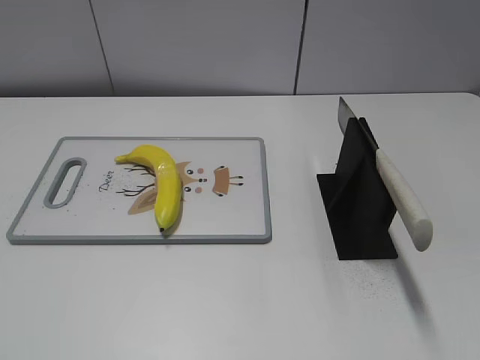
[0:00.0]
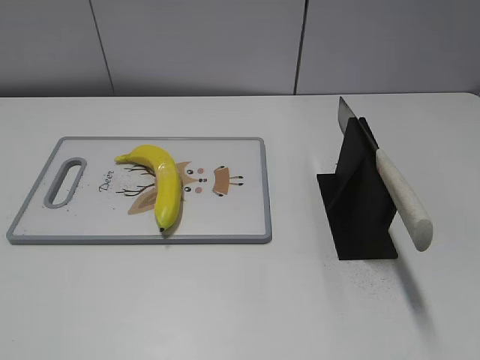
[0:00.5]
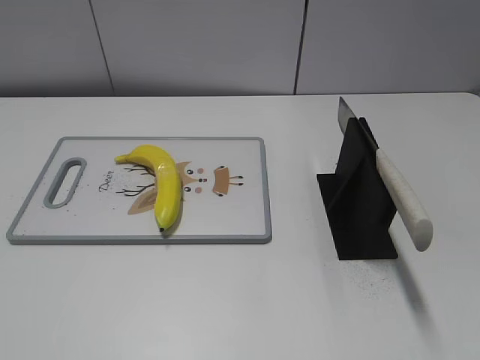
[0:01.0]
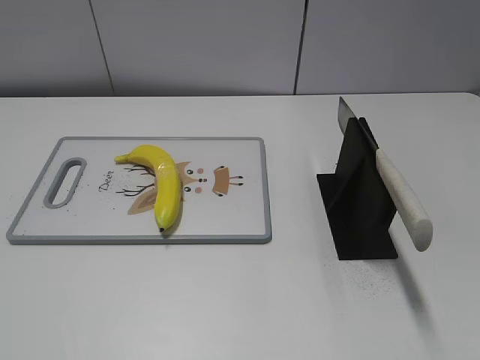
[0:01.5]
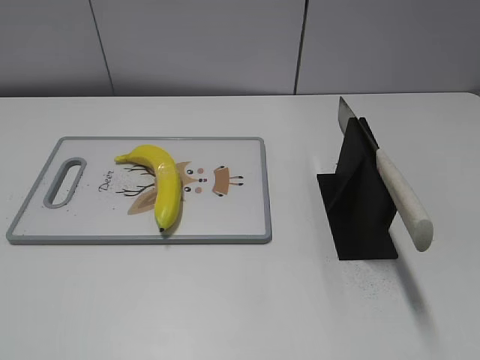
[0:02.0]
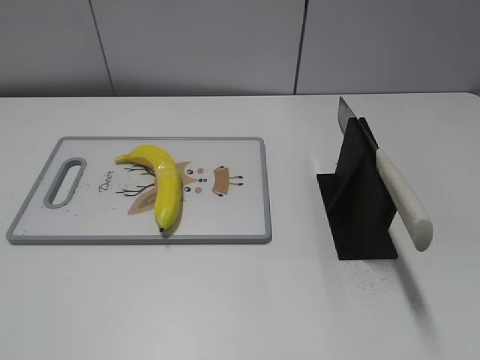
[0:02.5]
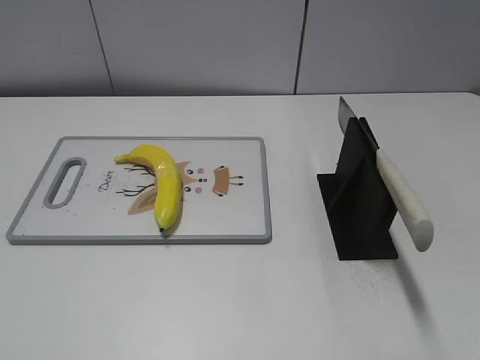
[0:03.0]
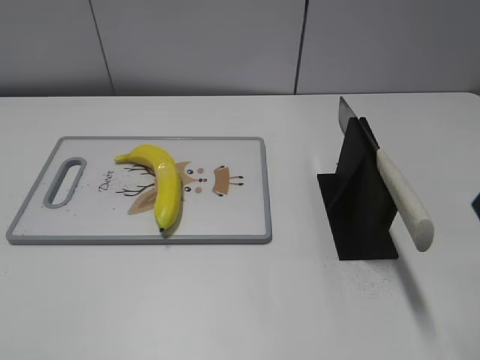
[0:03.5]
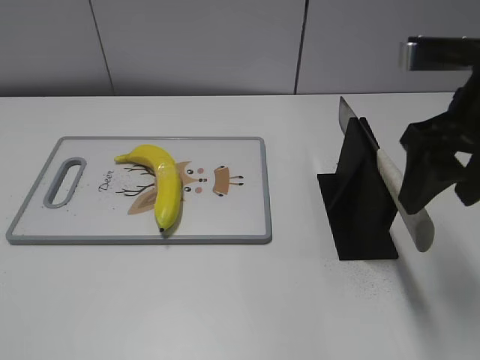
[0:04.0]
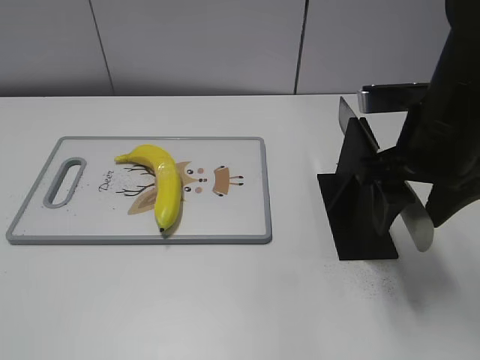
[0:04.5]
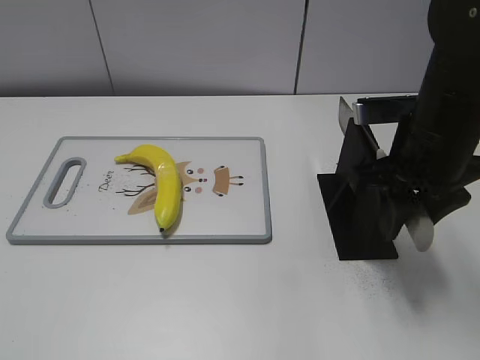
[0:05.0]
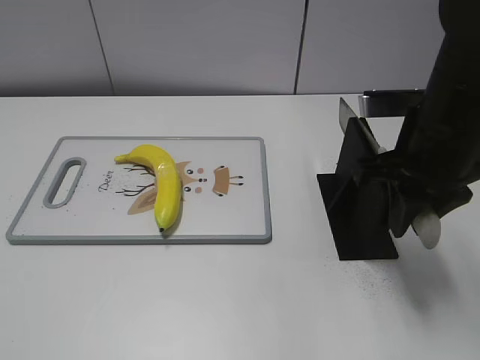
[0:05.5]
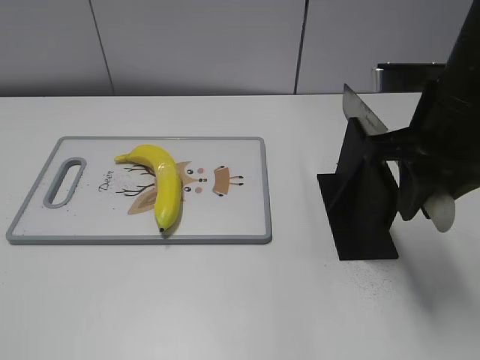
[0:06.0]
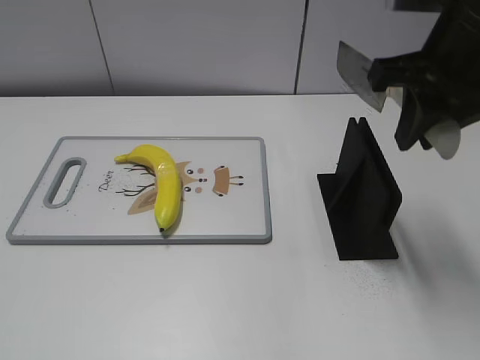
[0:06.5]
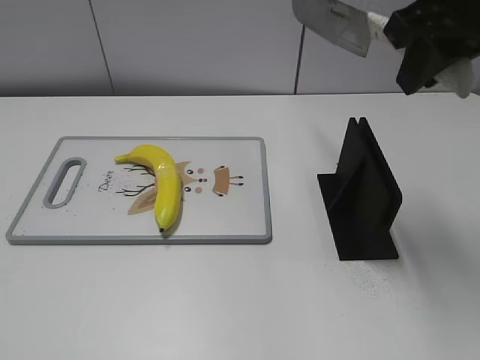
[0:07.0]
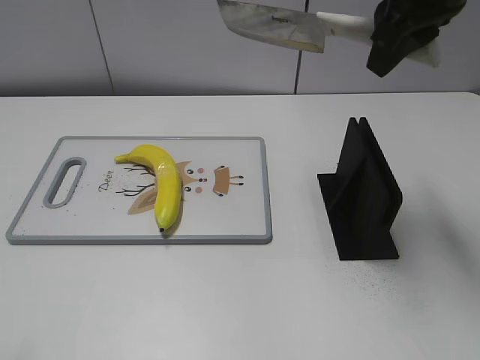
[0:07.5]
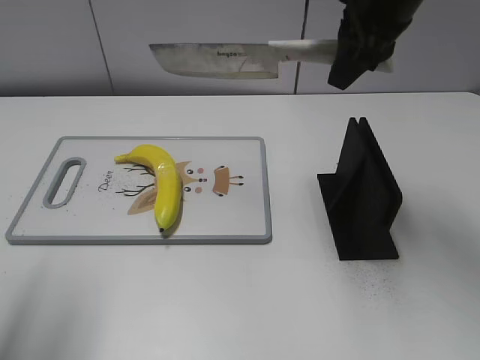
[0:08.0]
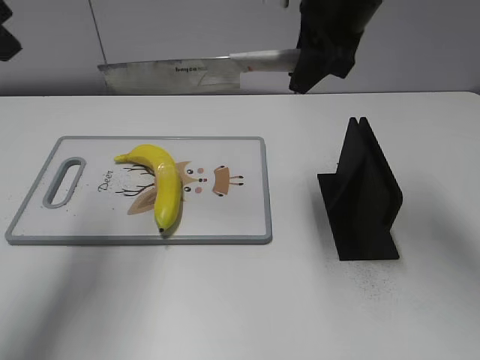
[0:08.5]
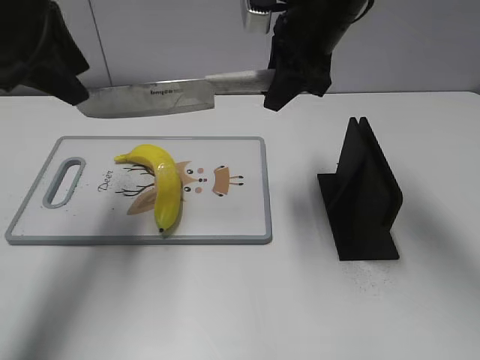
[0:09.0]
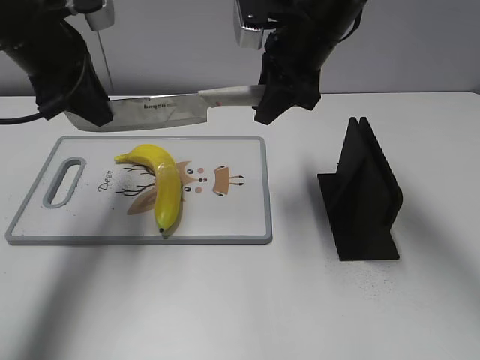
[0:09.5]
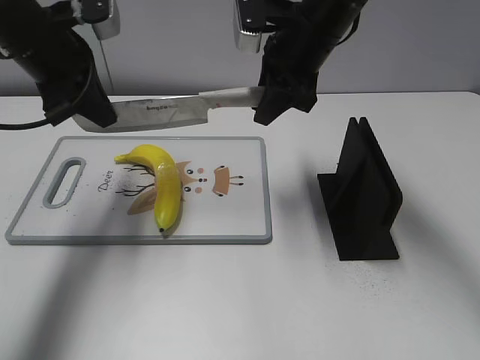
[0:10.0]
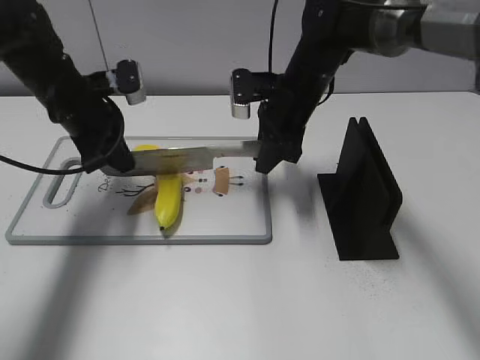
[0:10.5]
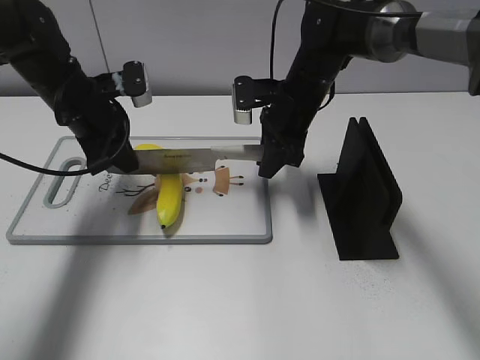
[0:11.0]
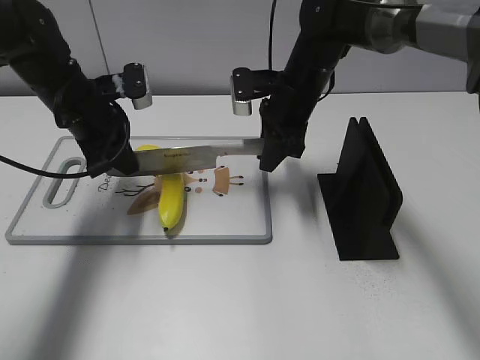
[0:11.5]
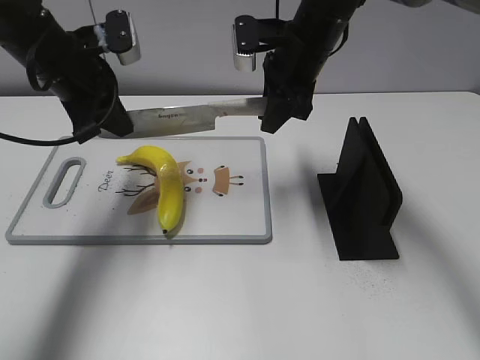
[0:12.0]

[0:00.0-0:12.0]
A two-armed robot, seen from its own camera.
Task of the whole recording: cut plastic banana.
Step, 0.0 to 6.0 s: Grab the knife handle with your right hand.
Step, 6.5 to 11.5 s: Lift the knife with your right hand.
2.0 to 4.0 s: The right gripper shifts approximately 30 cm forward and to the left.
4.0 to 6.0 s: The right gripper closes.
6.0 to 8.0 s: The right gripper heads forward and upward, covering some 10 cm. The left gripper goes some 20 cm forward and upward.
8.0 to 10.0 s: The left gripper heads forward and downward, covering approximately 25 cm, and closes its fingers. The right gripper moves downward, to the left and forward, approximately 10 cm.
10.0 to 12.0 s: The right gripper travels downward and back again, approximately 10 cm each way. The left gripper moves some 10 cm downward and comes back.

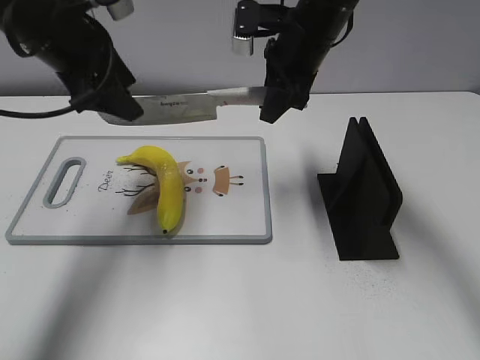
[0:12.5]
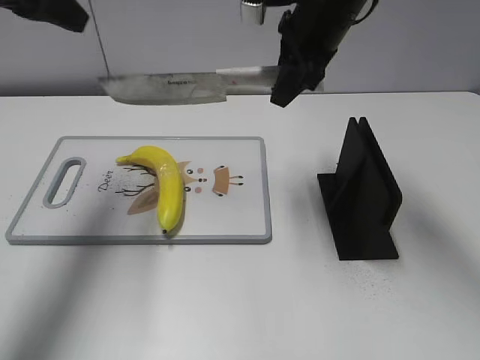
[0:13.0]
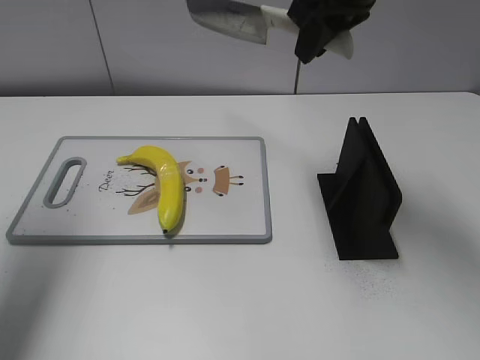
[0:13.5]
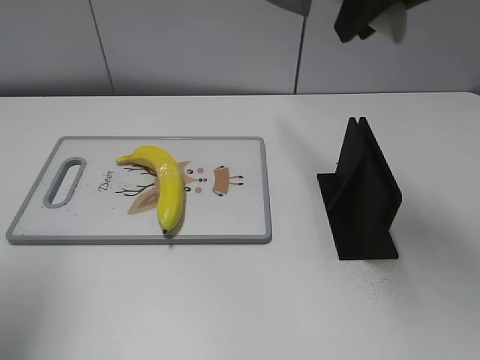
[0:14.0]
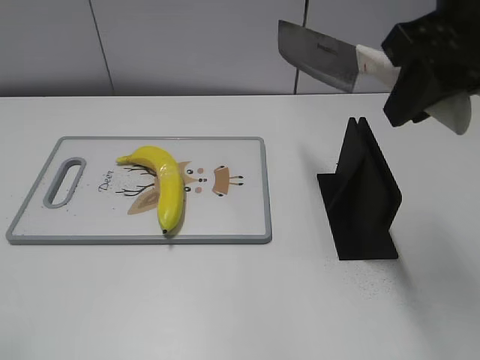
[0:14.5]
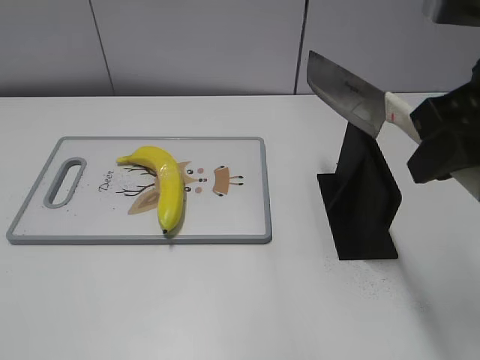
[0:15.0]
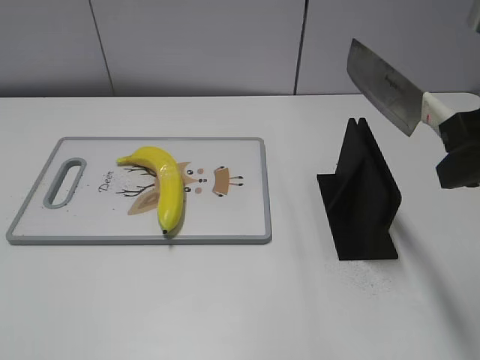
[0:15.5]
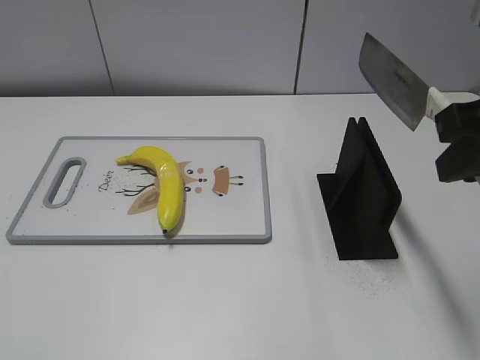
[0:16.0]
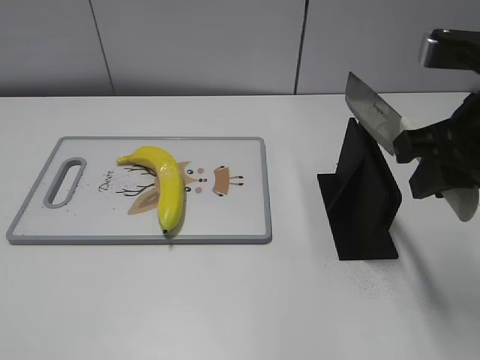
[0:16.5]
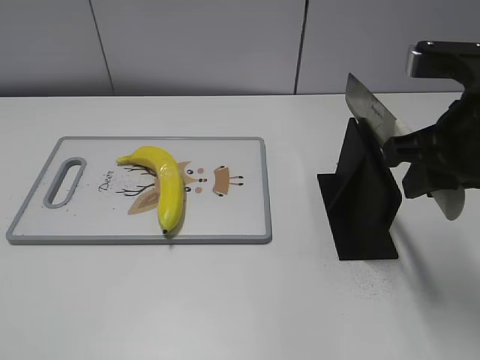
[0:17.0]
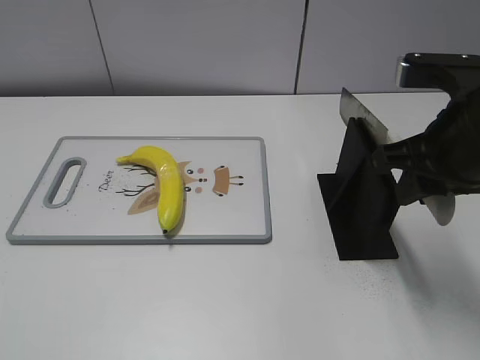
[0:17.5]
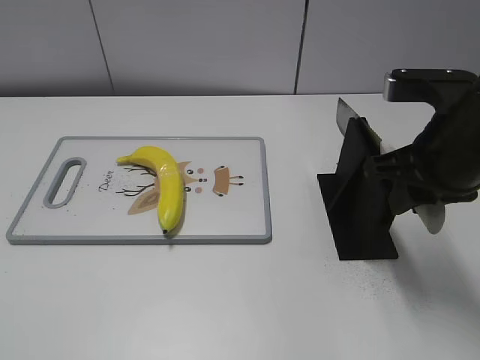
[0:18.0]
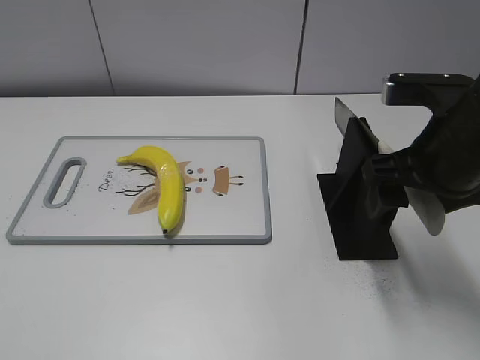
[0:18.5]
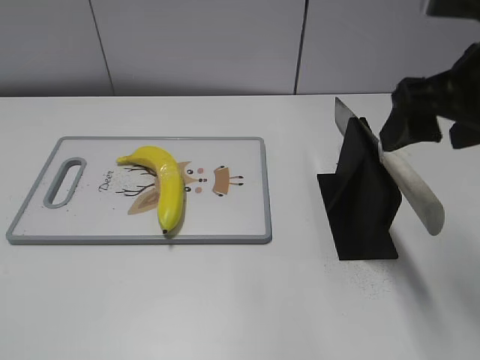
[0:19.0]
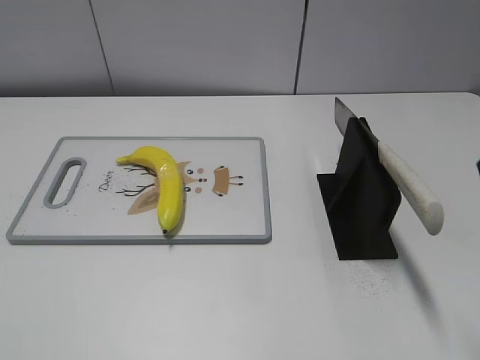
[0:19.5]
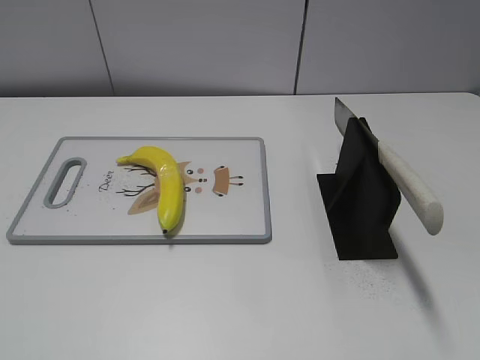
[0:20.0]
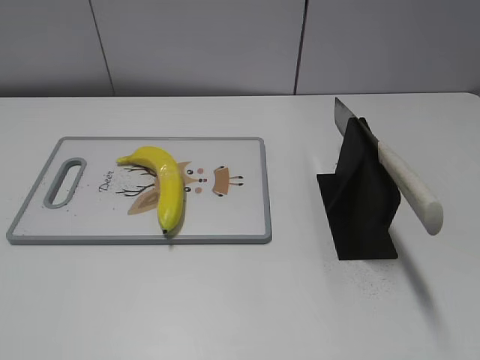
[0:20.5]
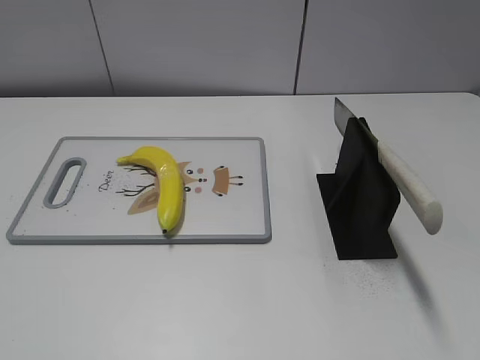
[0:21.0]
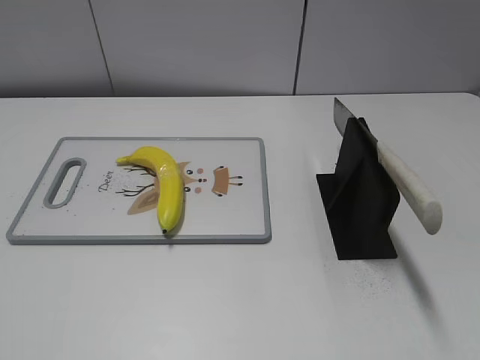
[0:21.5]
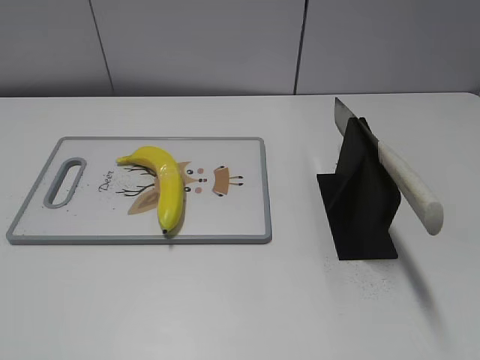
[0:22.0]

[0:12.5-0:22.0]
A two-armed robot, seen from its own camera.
Task of the whole recording: cut plastic banana.
Step, 12.5 to 13.0 s: Cut the banana with your right hand.
Step, 13.5 to 14.5 s: Lift the knife with your right hand.
Step, 15.0 to 22.0 s: Place the knife on the storage rack with your right hand.
12.5 to 14.5 s: The right gripper goes approximately 25 cm backward, upward and to the right. The left gripper moves backward and to the left, roughly 30 cm.
14.5 to 16.5 s: The right gripper shifts roughly 10 cm downward; the left gripper heads backward, covering roughly 10 cm.
16.5 to 18.0 s: The right gripper moves about 5 cm.
18.0 to 20.0 s: The right gripper heads backward, upward and to the right, covering roughly 20 cm, and opens up.

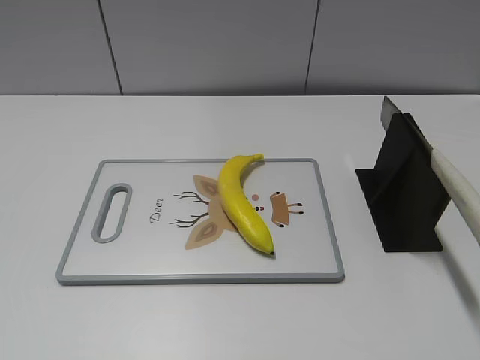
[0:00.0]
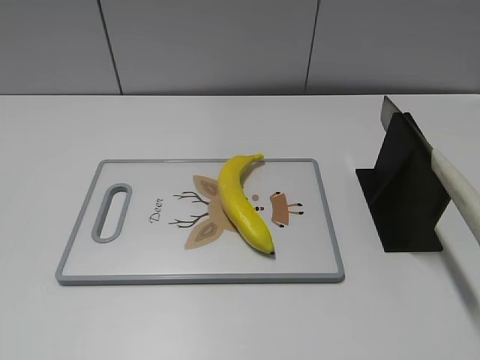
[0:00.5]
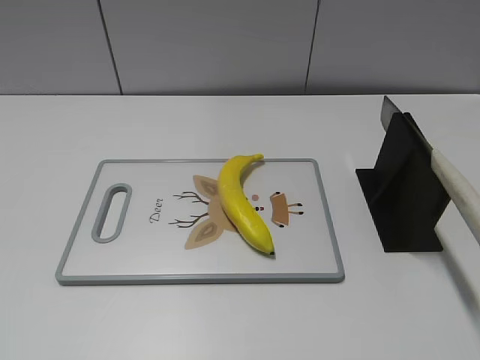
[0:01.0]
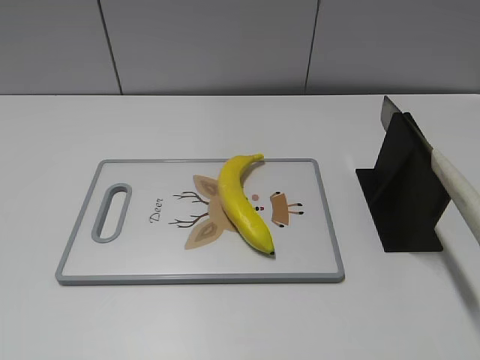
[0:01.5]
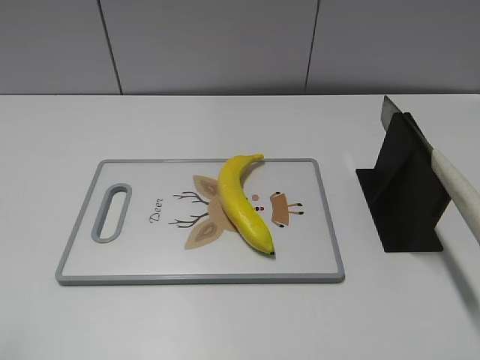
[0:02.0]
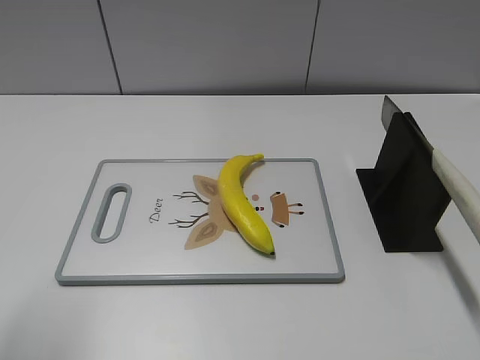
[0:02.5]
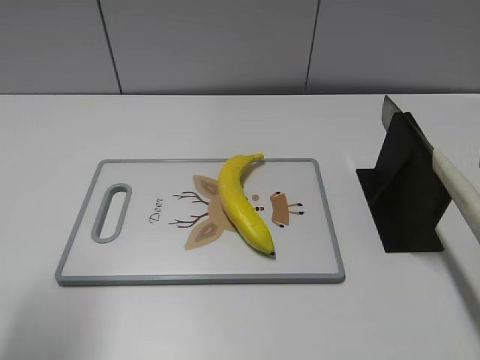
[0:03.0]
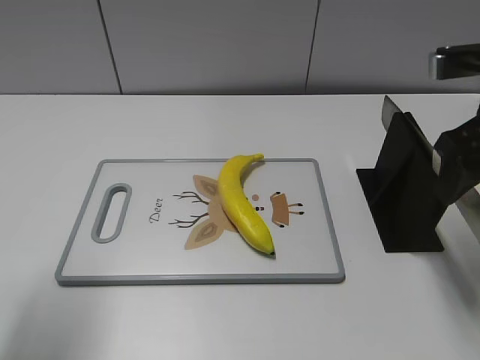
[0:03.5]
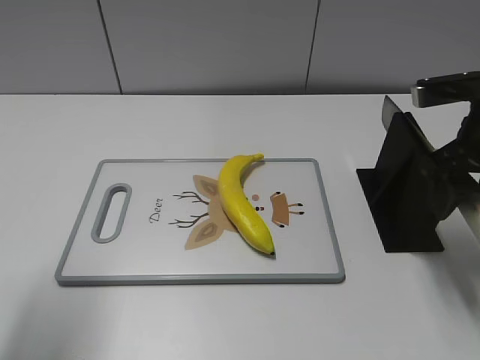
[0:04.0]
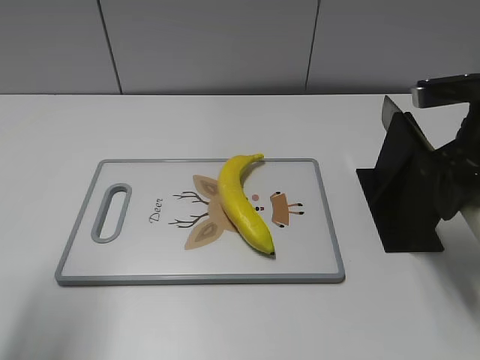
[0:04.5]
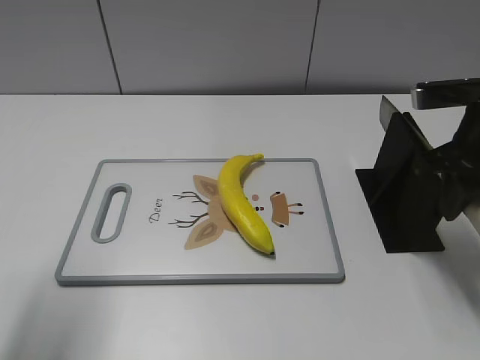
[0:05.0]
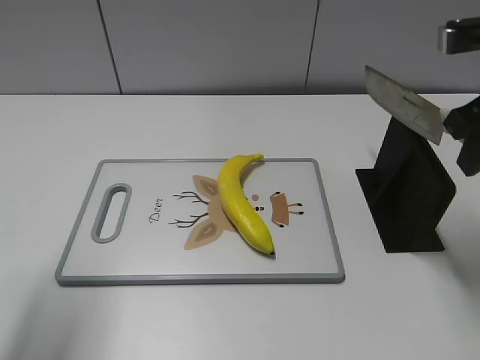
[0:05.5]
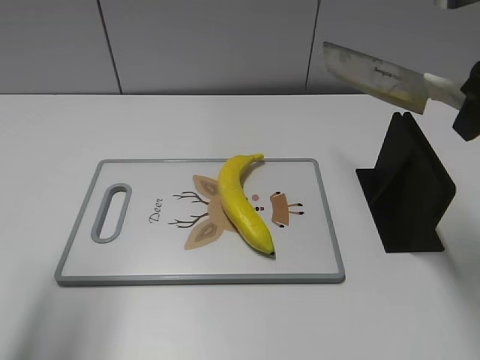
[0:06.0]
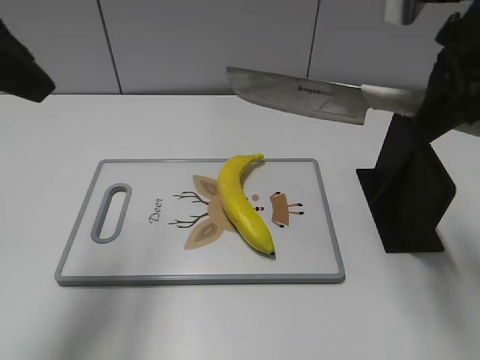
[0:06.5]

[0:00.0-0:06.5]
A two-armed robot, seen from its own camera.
Task of the whole recording: cut plastic banana.
Step, 0.0 to 5.0 s: Grab the knife handle with your right hand.
2.0 to 4.5 s: The right gripper goes about 25 cm forward and downward, and closes up; the left gripper is displaced forward by some 10 cm.
4.5 to 6.5 s: The right gripper travels upward by roughly 10 cm, and closes its fingers, while the left gripper moves forward, roughly 5 cm.
